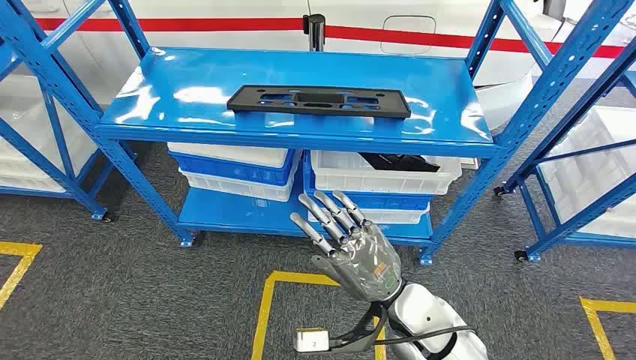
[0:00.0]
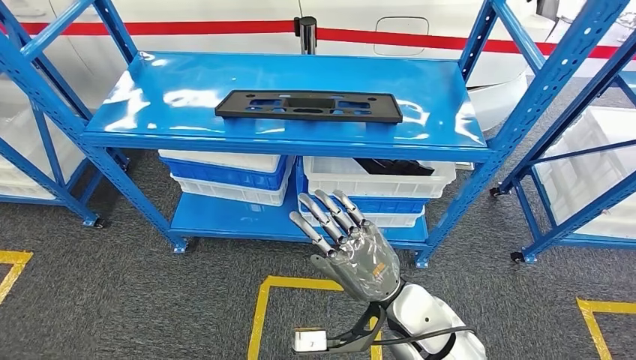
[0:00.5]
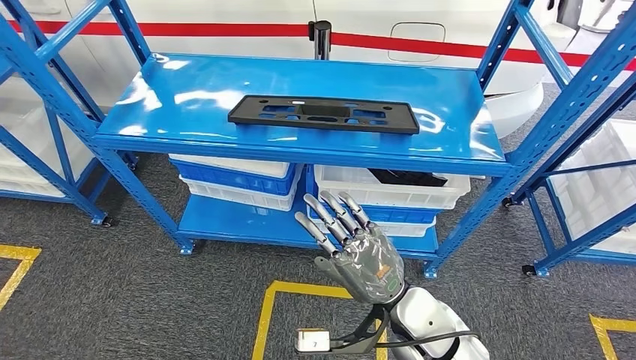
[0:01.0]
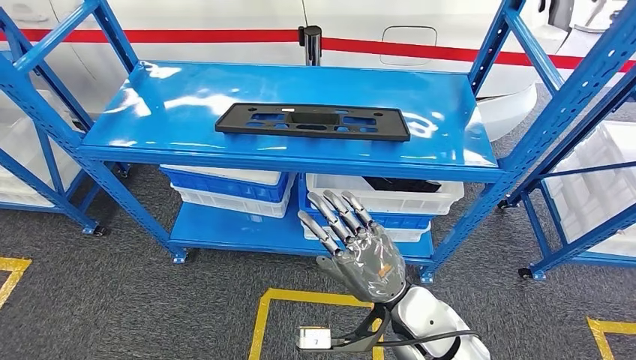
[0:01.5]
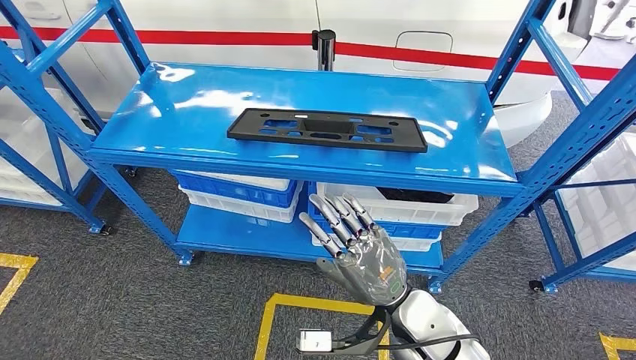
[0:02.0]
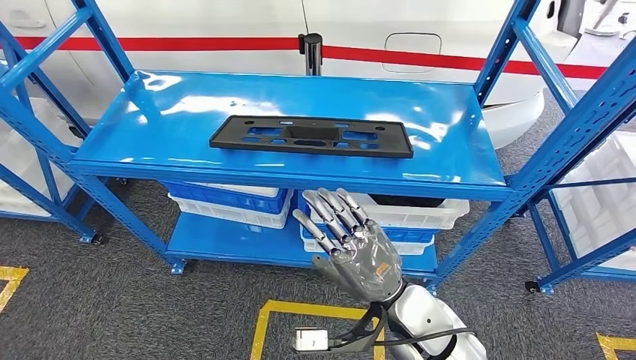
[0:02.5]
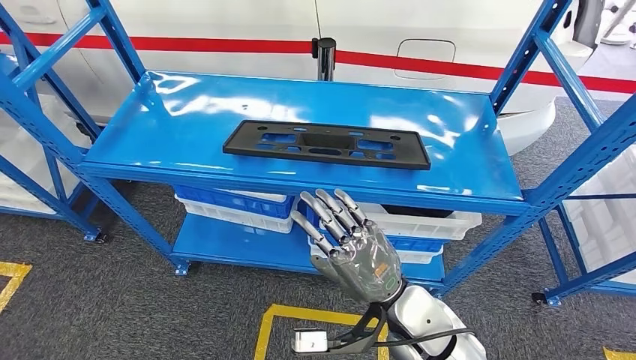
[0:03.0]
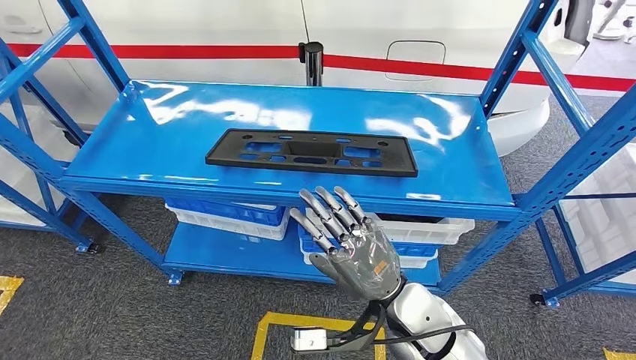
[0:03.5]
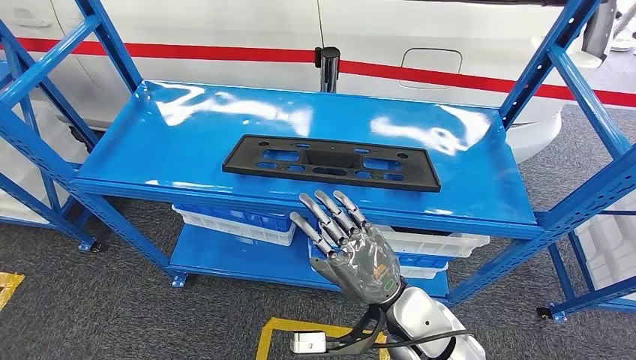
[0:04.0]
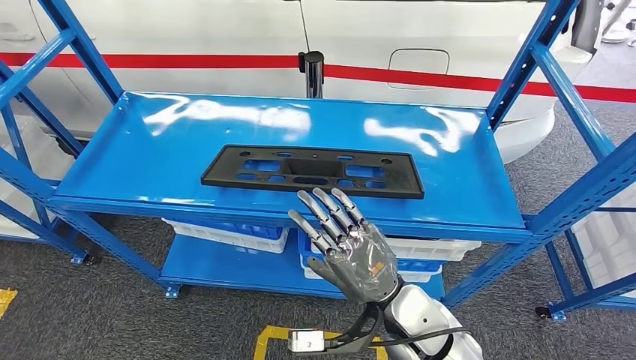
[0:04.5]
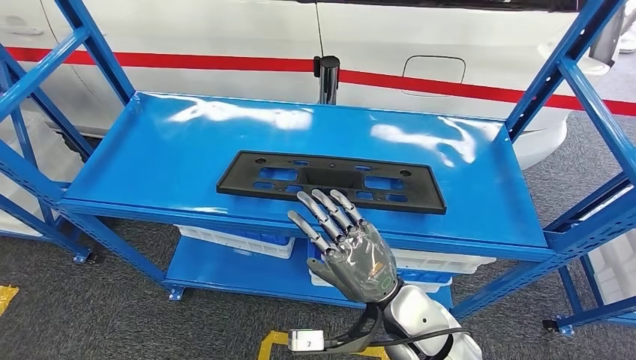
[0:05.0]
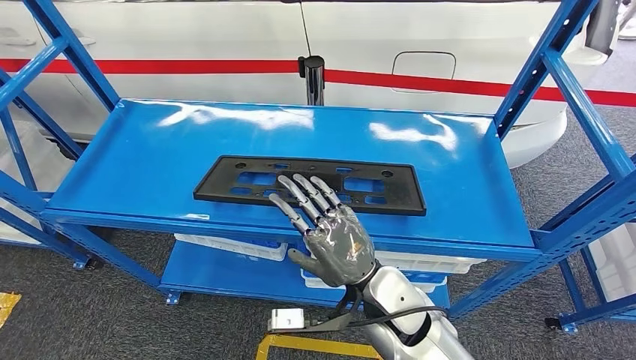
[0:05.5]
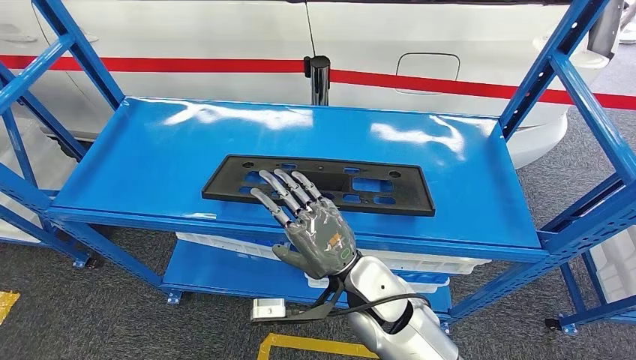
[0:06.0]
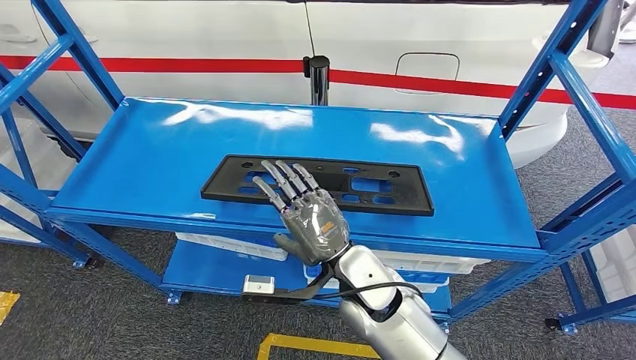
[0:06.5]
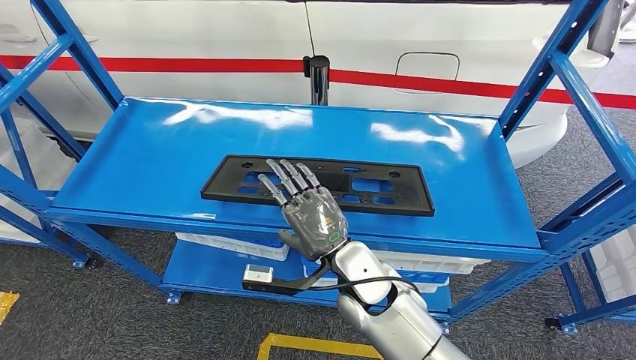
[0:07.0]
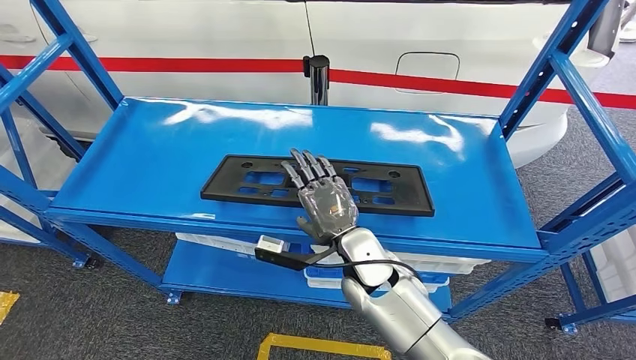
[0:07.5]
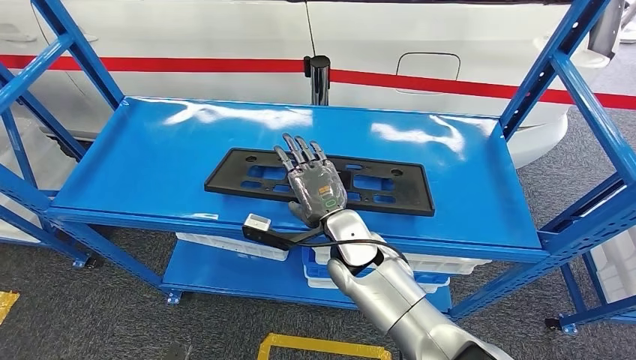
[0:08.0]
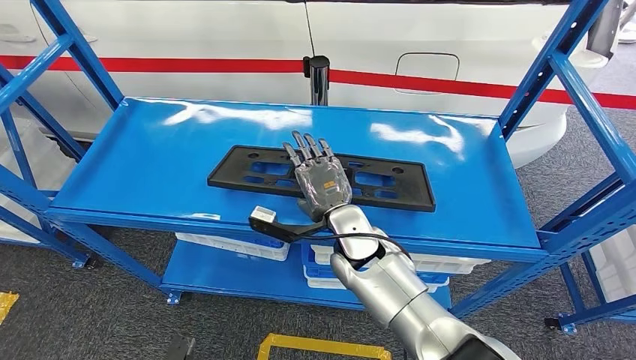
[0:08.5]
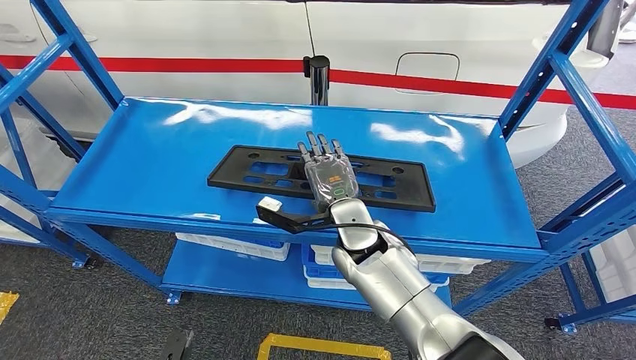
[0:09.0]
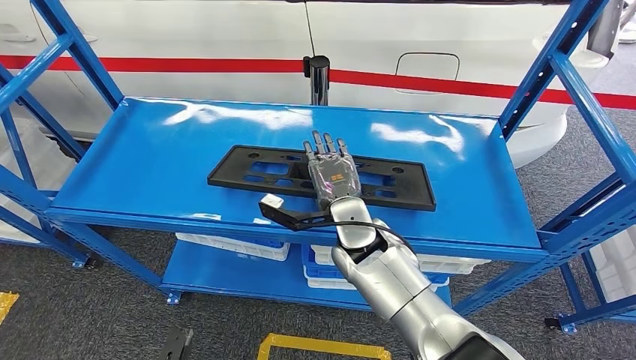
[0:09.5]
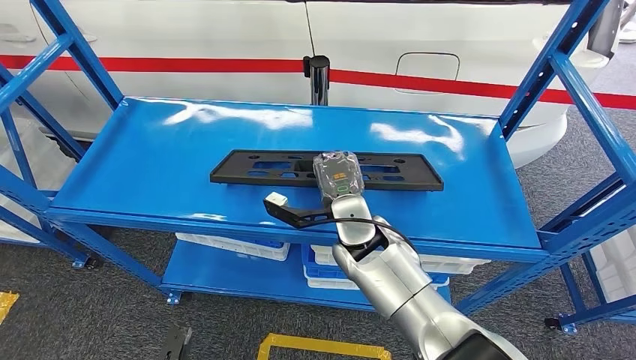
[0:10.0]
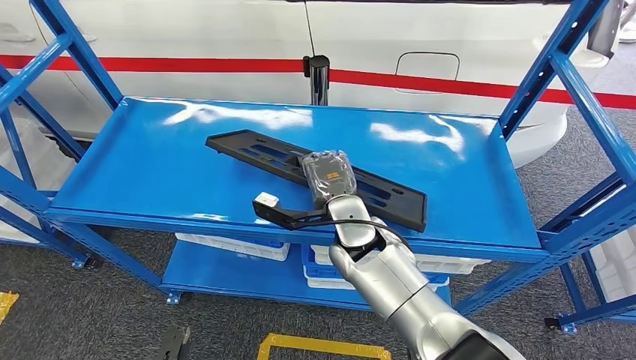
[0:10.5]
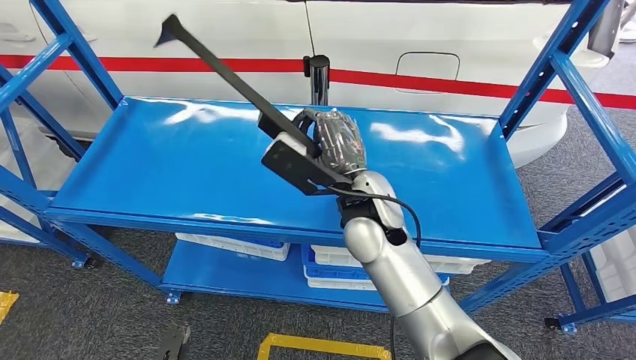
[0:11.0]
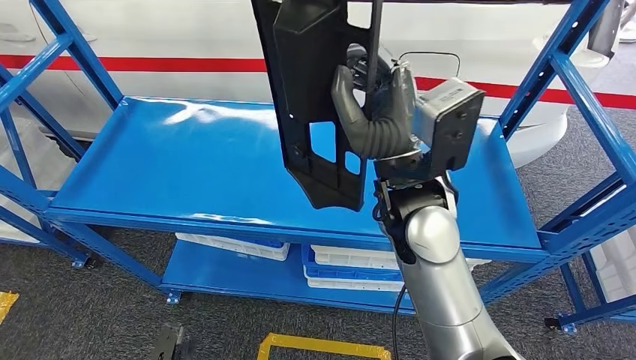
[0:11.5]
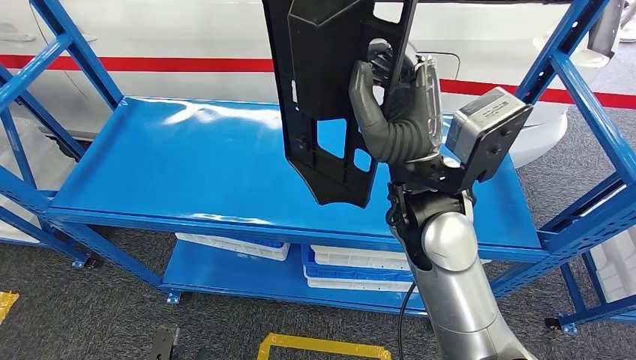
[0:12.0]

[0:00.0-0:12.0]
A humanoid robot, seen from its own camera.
0:06.0 to 0:08.0: The hands both shift forward by approximately 10 cm.

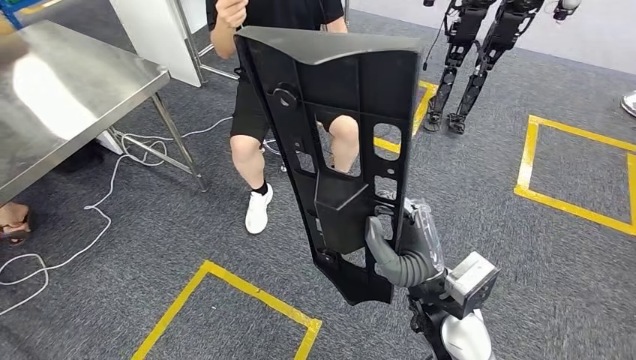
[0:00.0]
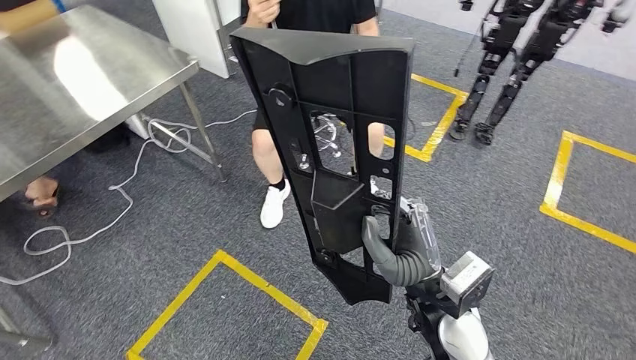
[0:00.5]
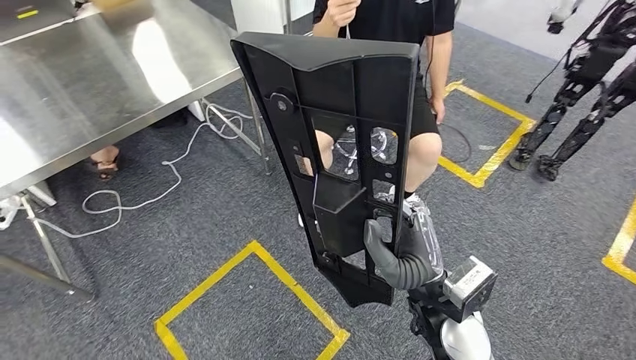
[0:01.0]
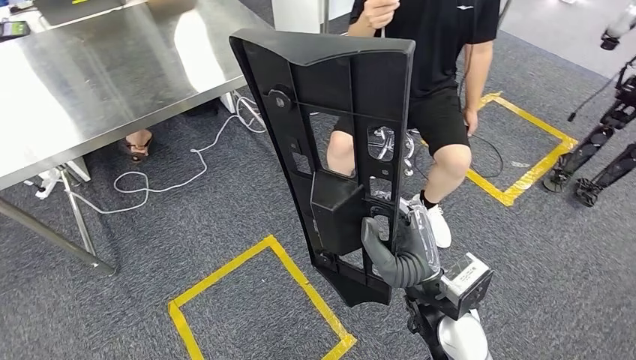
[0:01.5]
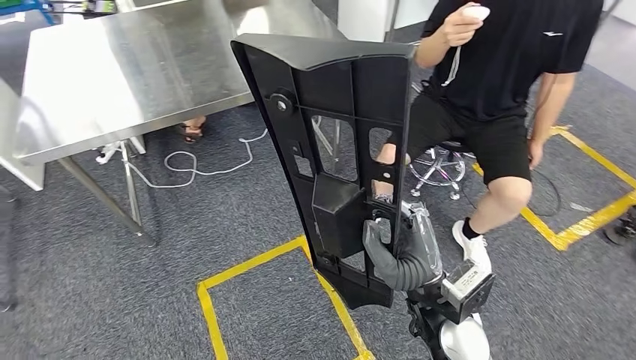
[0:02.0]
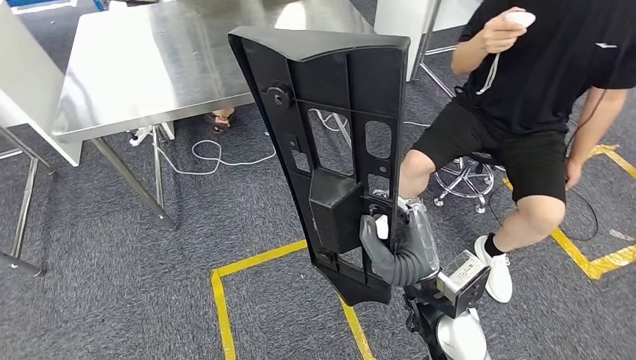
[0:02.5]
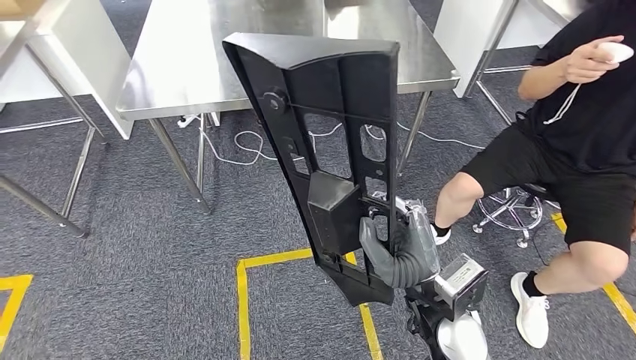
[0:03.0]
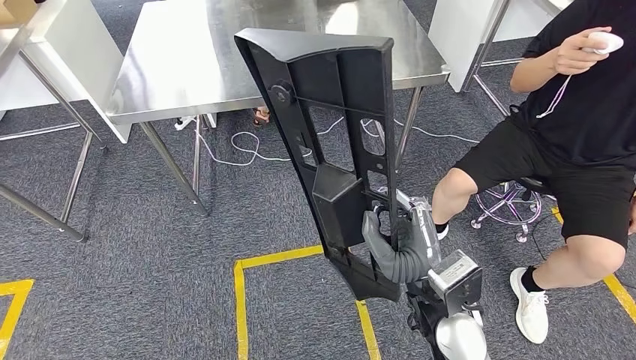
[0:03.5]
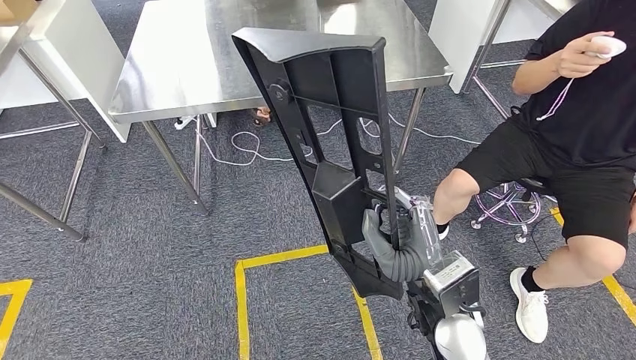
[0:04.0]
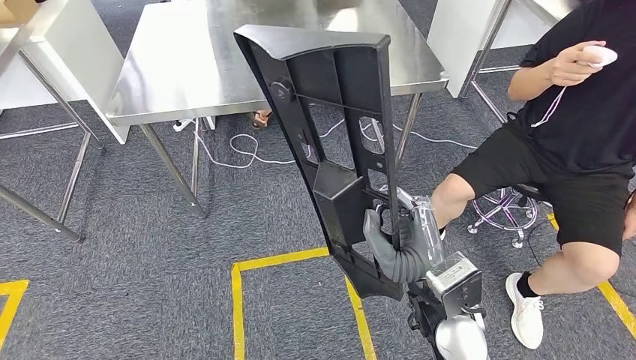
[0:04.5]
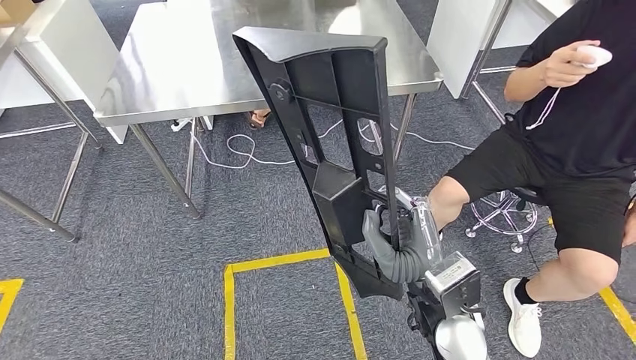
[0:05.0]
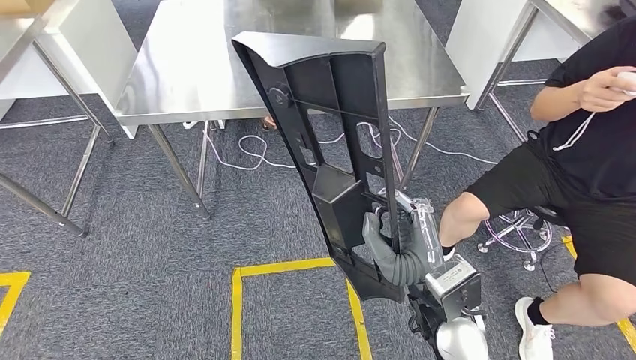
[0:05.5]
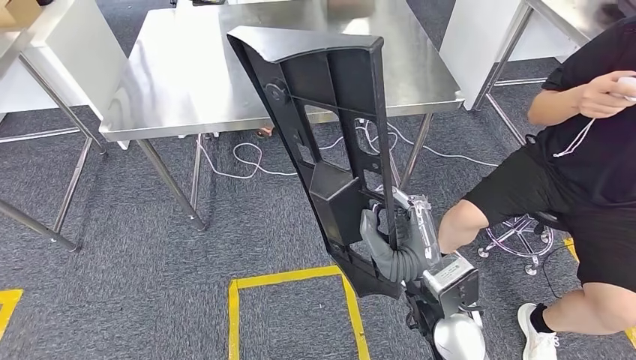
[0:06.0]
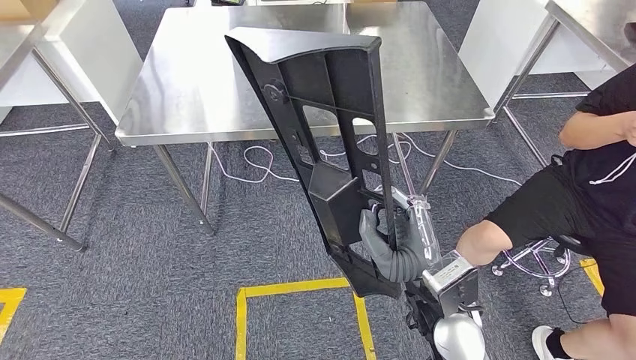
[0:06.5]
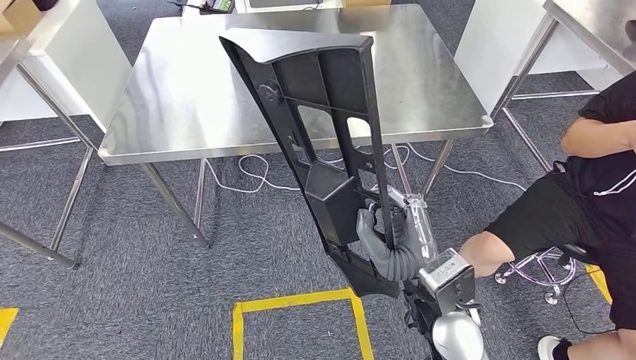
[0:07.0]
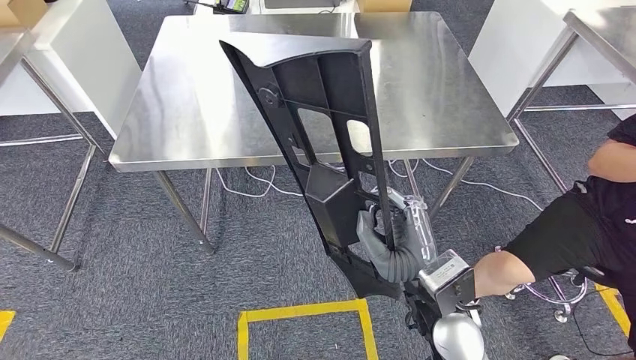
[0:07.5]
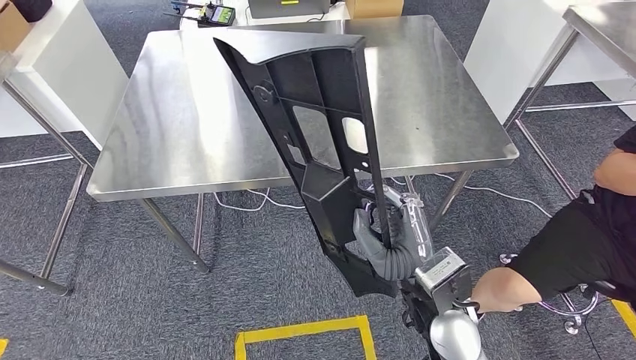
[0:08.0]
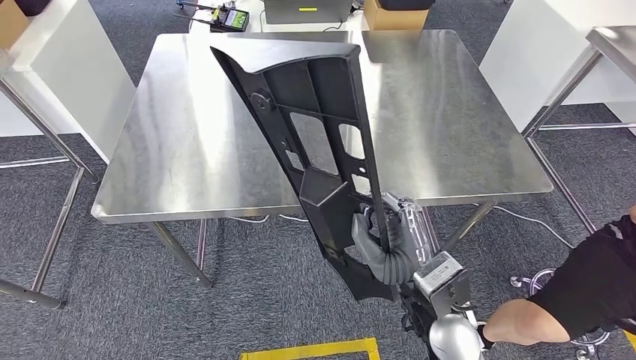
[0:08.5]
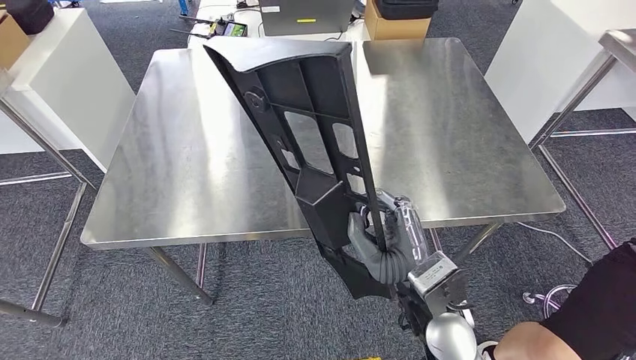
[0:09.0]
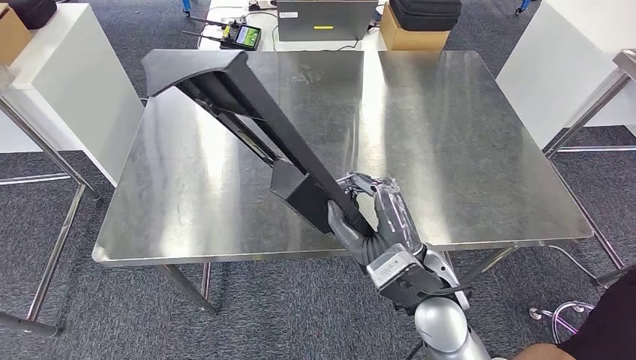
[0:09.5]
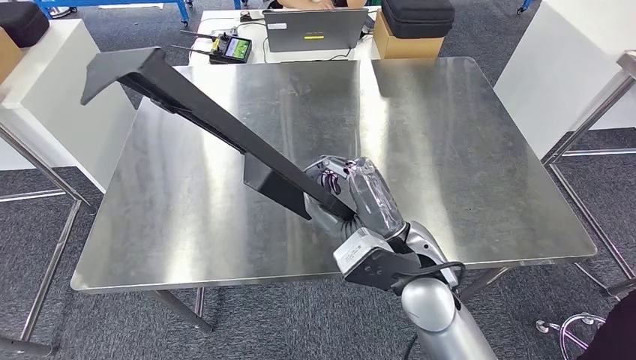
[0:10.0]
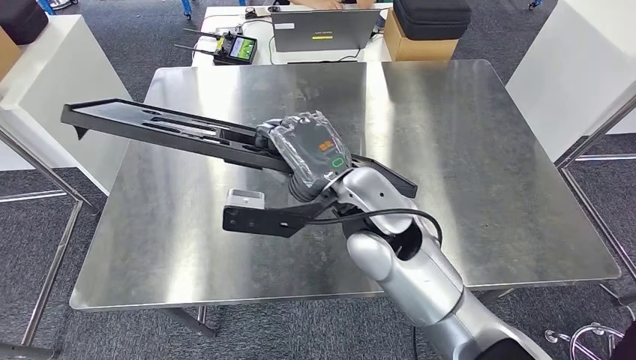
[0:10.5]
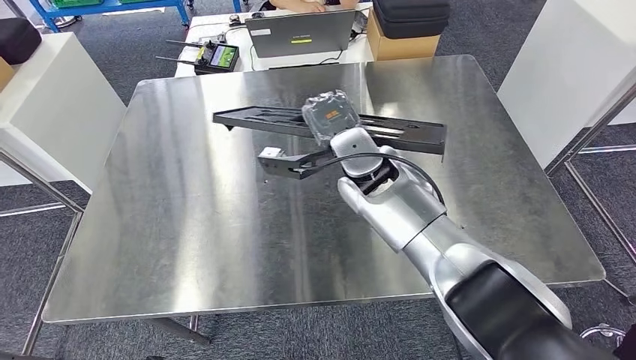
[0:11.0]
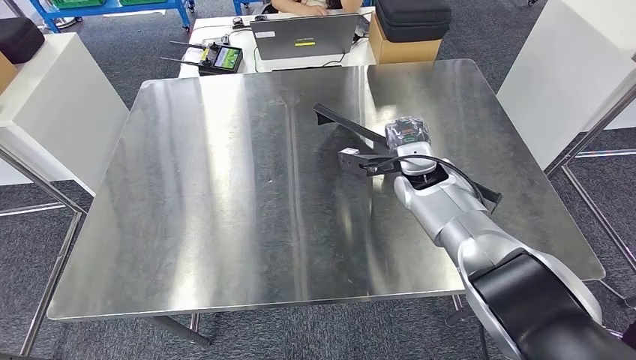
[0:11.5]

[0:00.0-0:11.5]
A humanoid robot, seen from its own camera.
Step, 0:00.0 to 0:07.5: Move the large material to the workbench.
